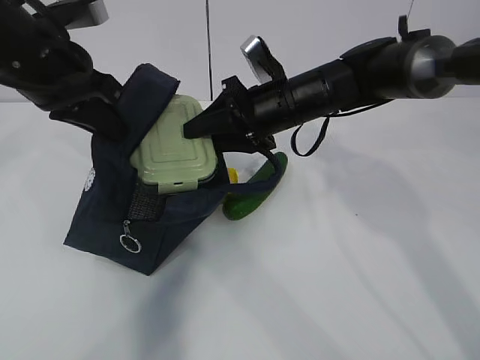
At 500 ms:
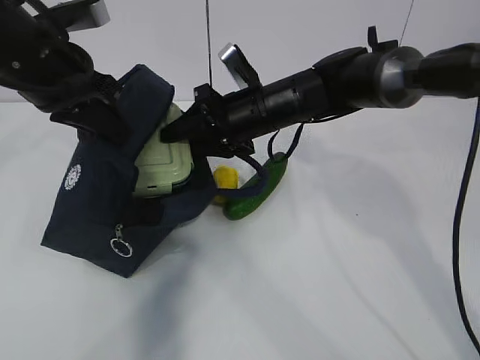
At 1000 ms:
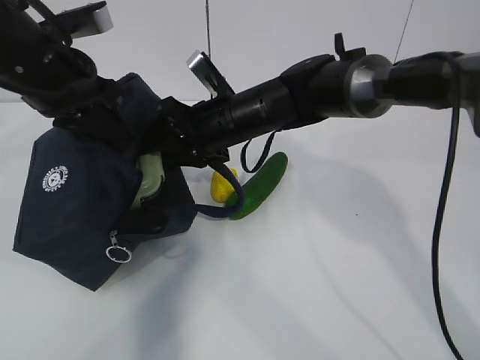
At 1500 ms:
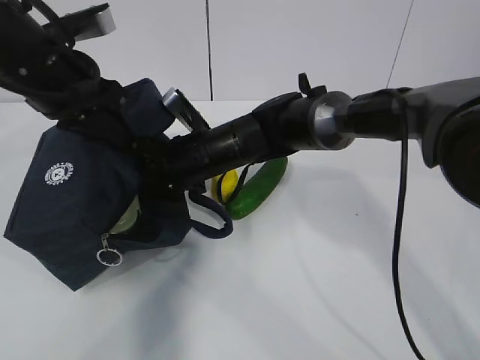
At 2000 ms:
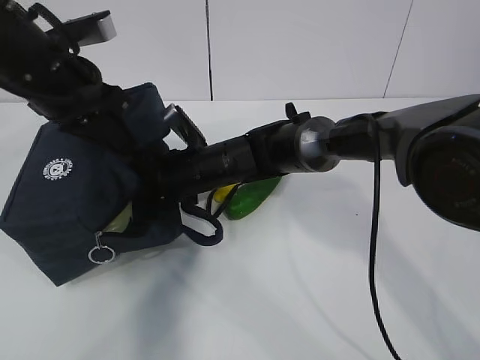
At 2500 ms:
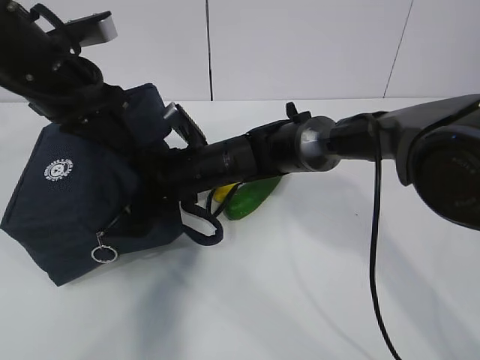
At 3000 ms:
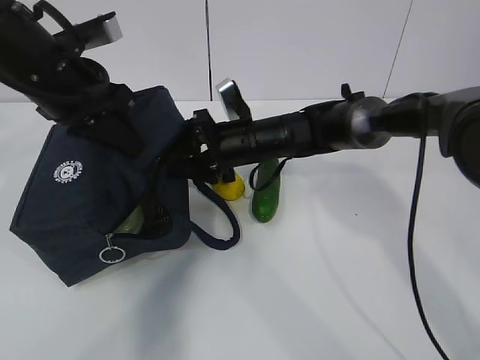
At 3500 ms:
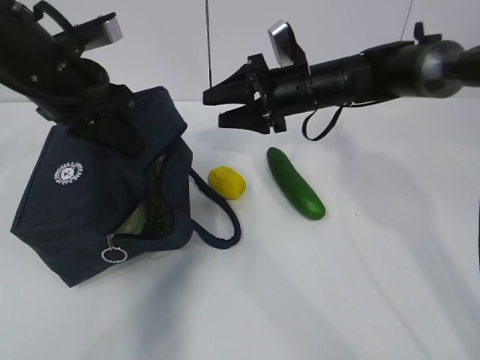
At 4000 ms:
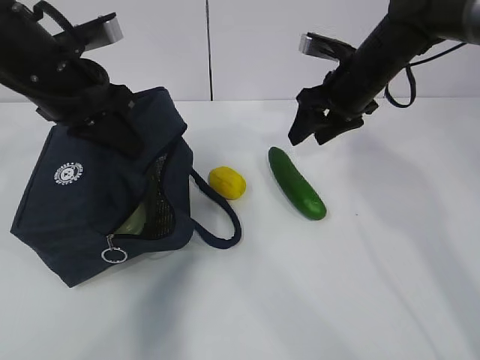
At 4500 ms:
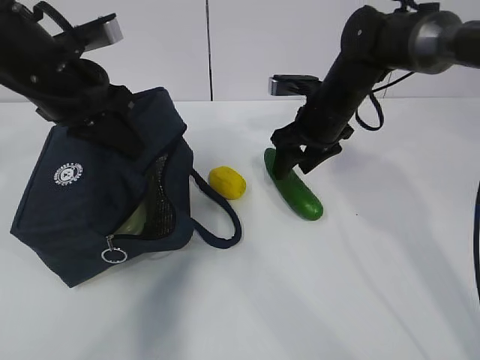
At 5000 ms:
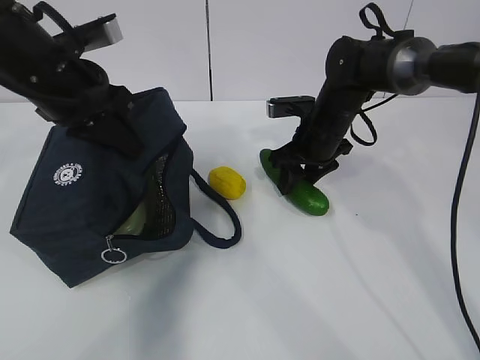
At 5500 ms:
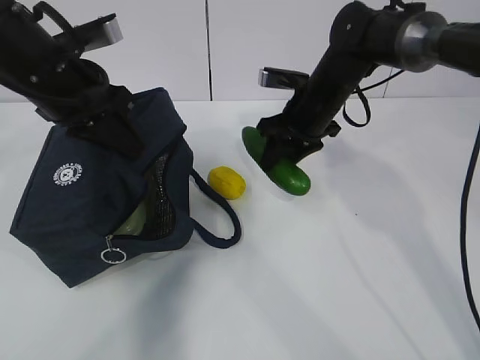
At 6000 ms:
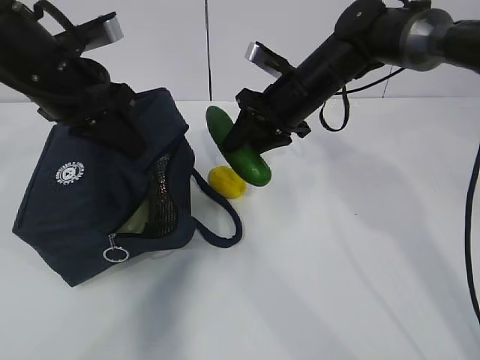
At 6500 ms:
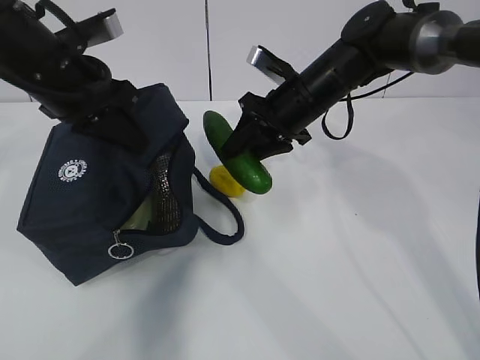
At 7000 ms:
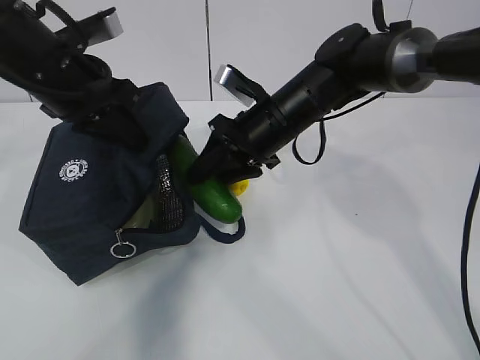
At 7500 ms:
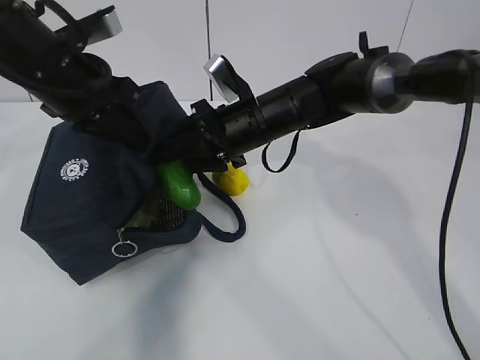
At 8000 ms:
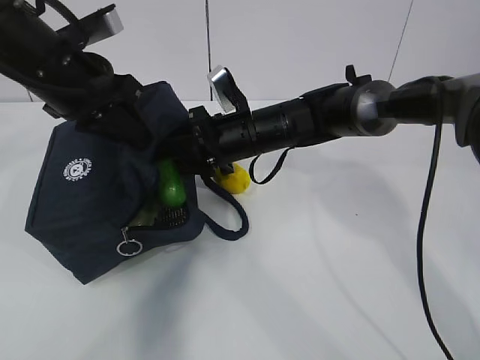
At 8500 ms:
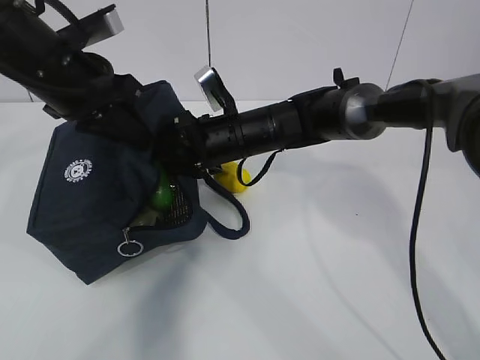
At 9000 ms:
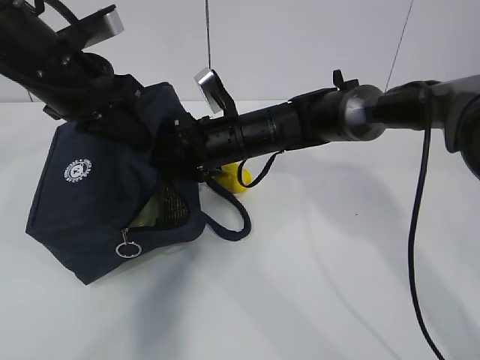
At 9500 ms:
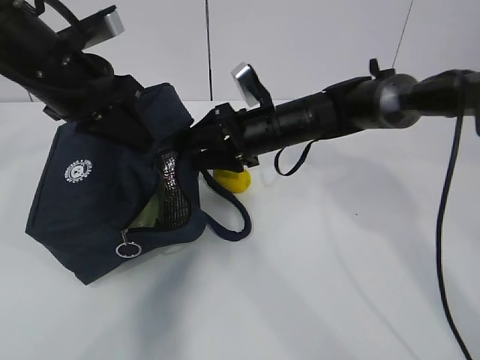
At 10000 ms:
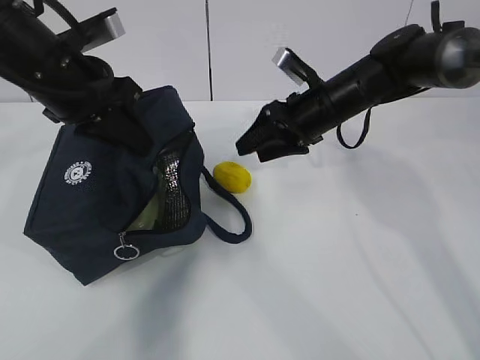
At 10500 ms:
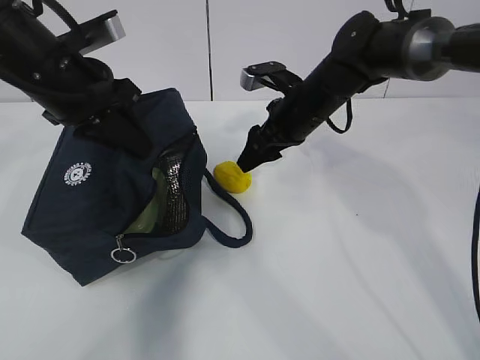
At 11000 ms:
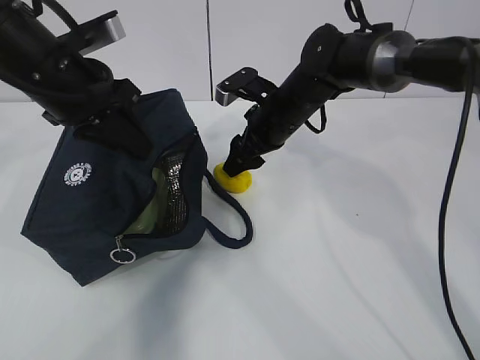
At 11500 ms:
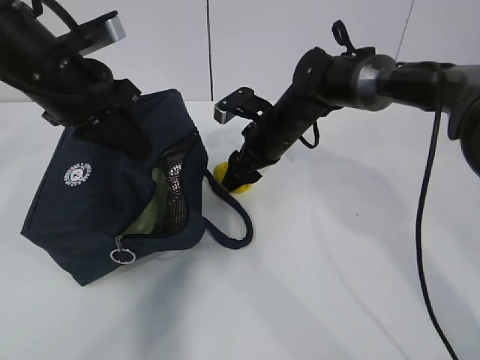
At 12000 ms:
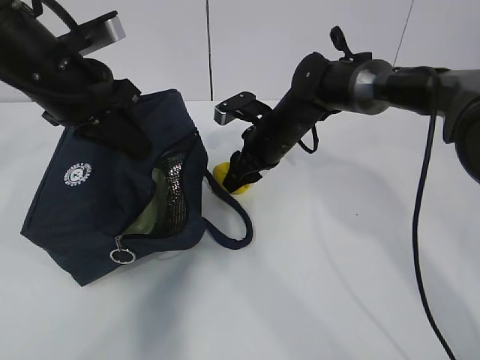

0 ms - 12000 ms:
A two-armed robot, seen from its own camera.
Step, 1000 ms - 3500 ms: Place it into the bag with your right hand.
Step, 4000 ms - 6500 ms: Grab the lemon with your right hand.
0 ms - 2000 ms: The right gripper heads to the left and downward, covering roughly 15 cm.
2000 ms - 4000 ms: The right gripper heads to the right and upward, covering roughly 25 cm.
4000 ms - 6000 ms: The right gripper is displaced to the left by some 5 cm, and moves about 10 cm downward and comes back.
6000 ms - 8000 ms: The right gripper goes approximately 5 cm to the left.
8000 ms - 10000 ms: The right gripper heads to the right, covering some 10 cm.
10000 ms - 12000 ms: The right gripper travels to the left and downward by approximately 10 cm.

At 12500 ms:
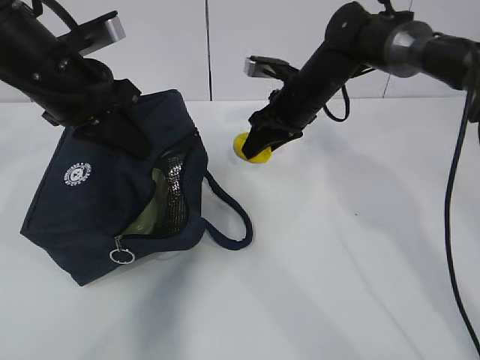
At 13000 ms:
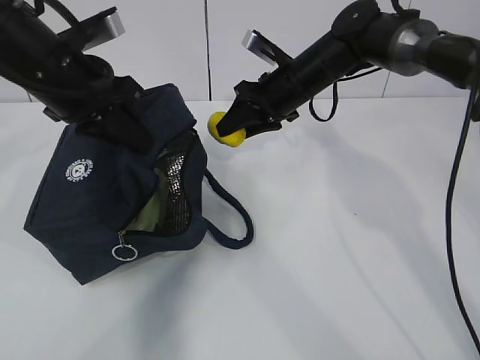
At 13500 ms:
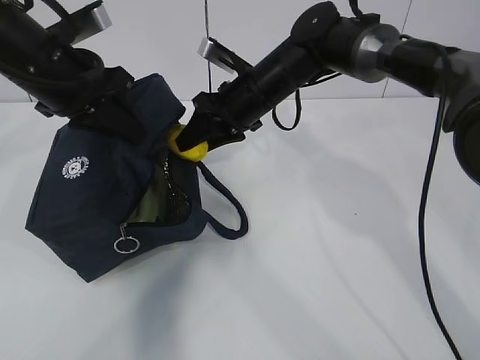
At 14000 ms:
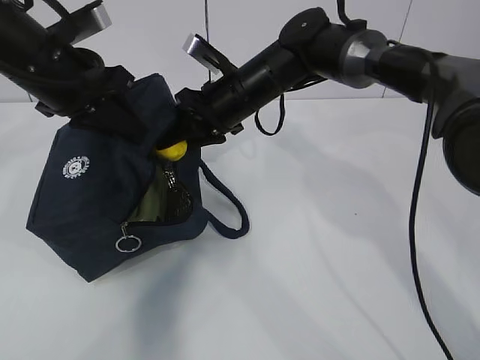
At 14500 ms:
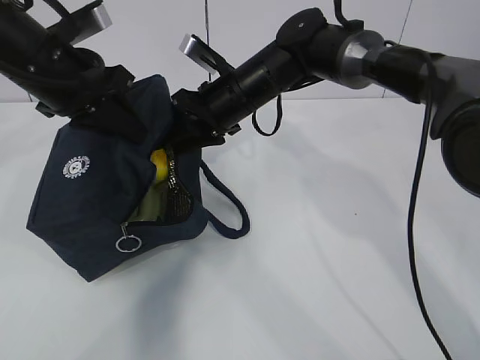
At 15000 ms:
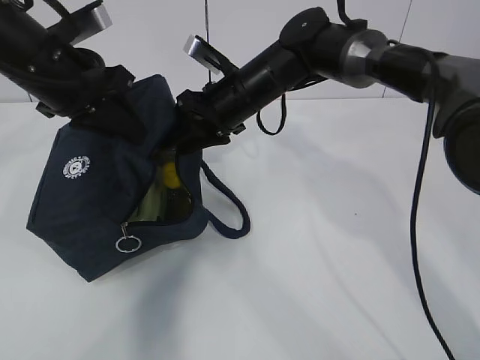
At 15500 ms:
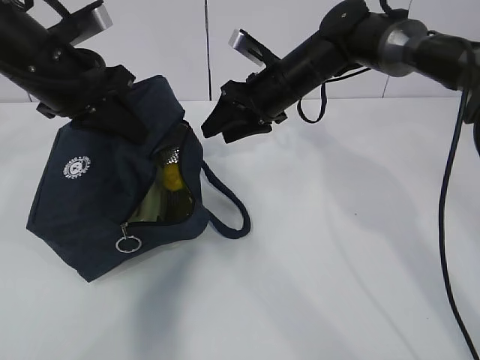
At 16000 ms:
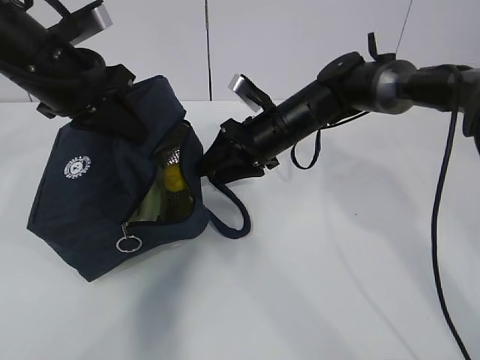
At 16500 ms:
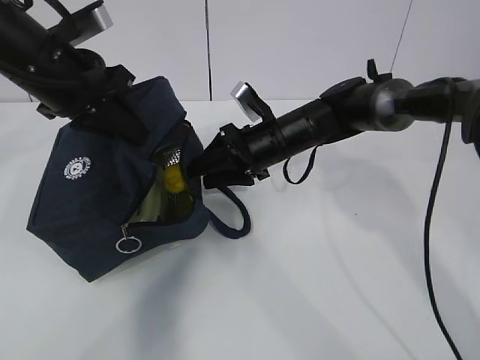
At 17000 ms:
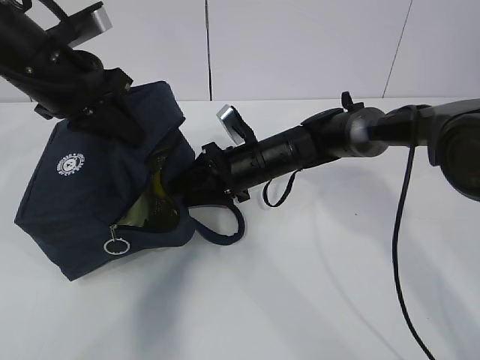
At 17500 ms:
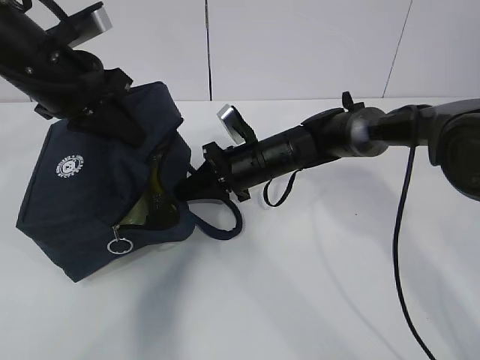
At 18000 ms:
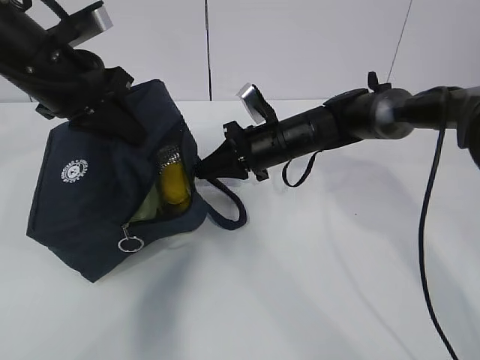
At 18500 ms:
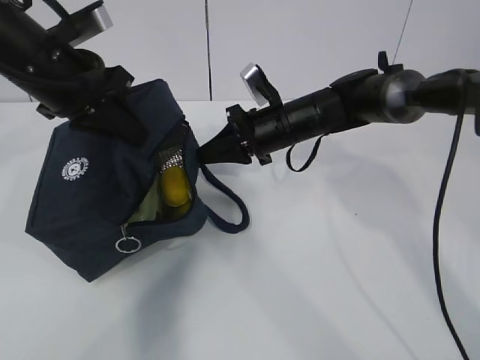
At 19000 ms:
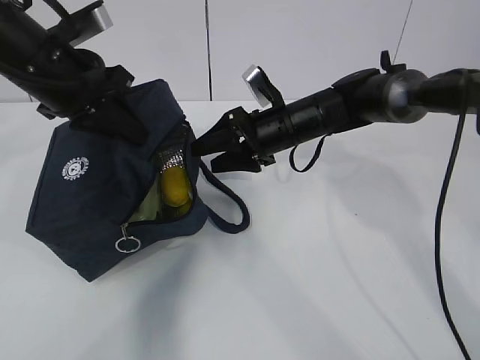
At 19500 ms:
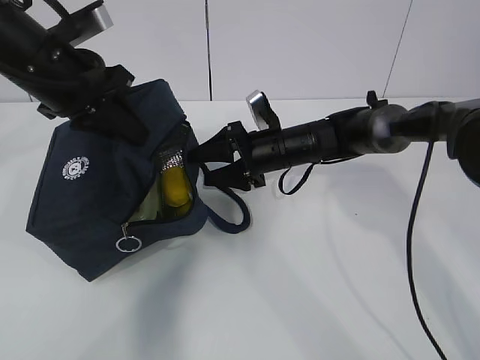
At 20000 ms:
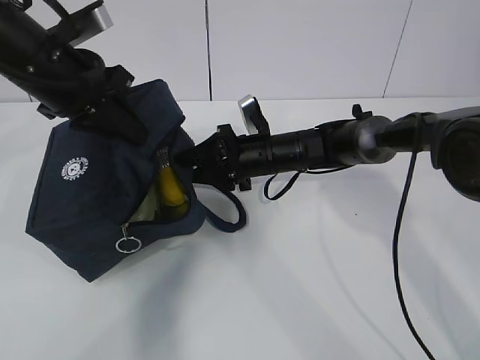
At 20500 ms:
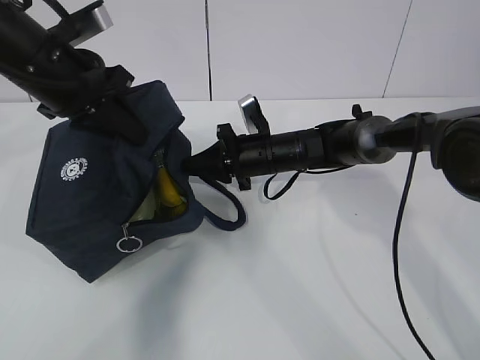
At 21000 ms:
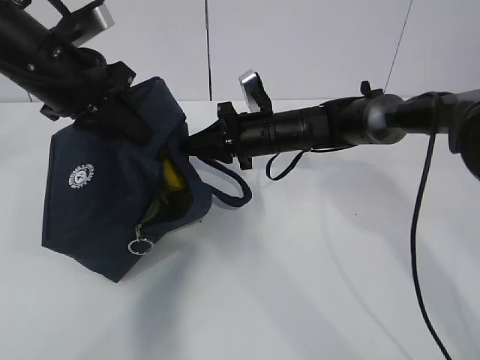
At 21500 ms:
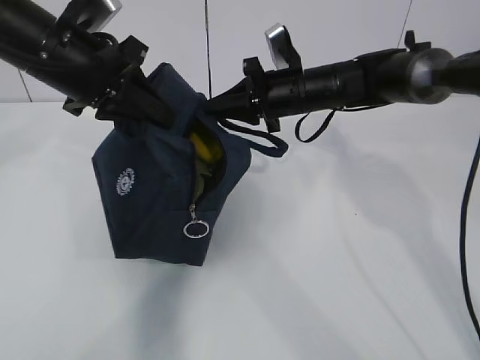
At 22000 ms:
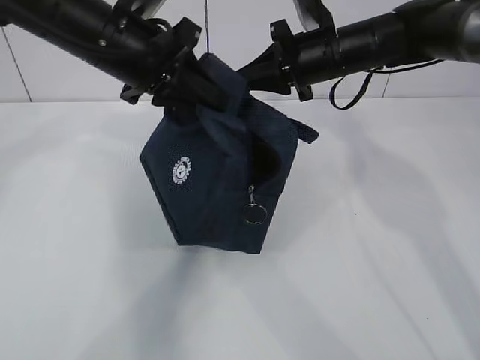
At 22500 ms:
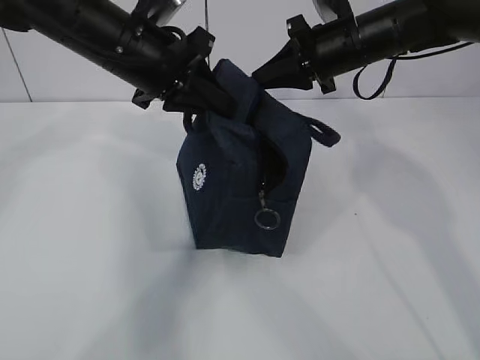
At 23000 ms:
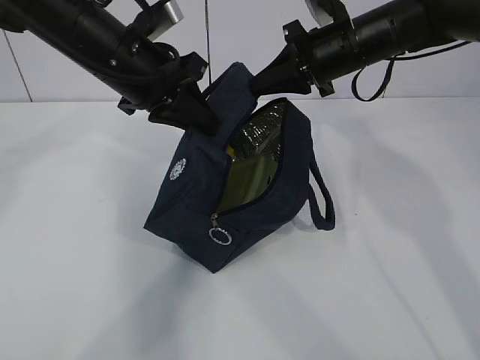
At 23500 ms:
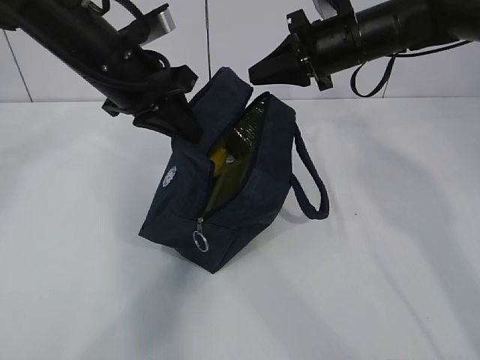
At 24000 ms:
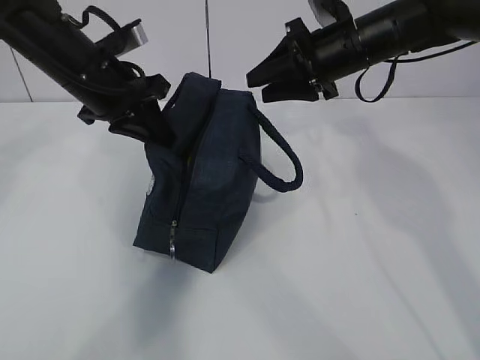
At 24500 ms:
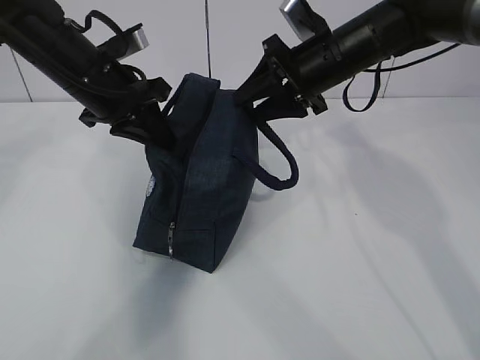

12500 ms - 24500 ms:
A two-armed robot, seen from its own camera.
Step, 12500 ms - 17500 ms: Grab the lunch bag with your right hand.
Step, 18000 ms - 19000 ms: Move the lunch bag to the right.
12500 ms - 14500 ms: The right gripper is displaced to the left by roughly 10 cm.
14500 ms - 16500 ms: The right gripper goes some 10 cm downward and to the right.
16500 ms - 18500 ms: The right gripper closes.
18500 ms - 20500 ms: The right gripper heads downward, covering some 5 cm, and opens and closes again.
20500 ms - 22500 ms: The left gripper shifts some 10 cm to the right. Meanwhile the right gripper goes about 20 cm upward and to the right.
22500 ms - 24500 ms: The right gripper opens up, while the left gripper travels to the left by some 5 cm.

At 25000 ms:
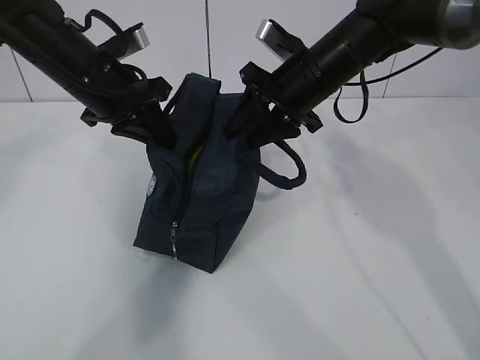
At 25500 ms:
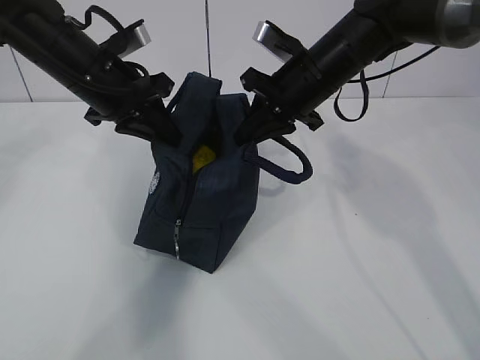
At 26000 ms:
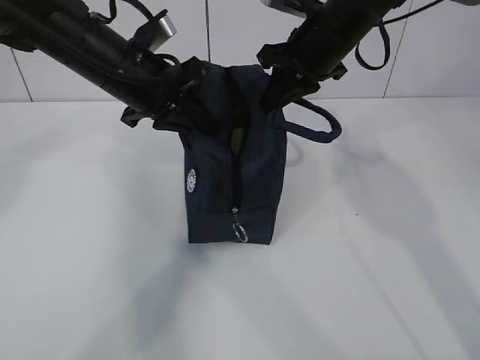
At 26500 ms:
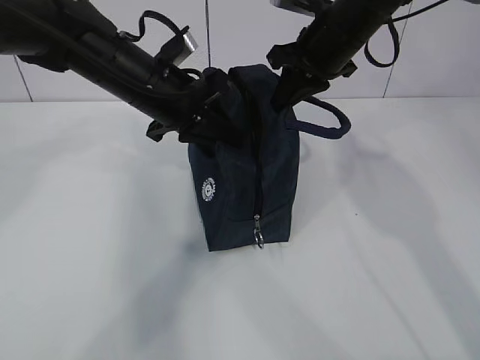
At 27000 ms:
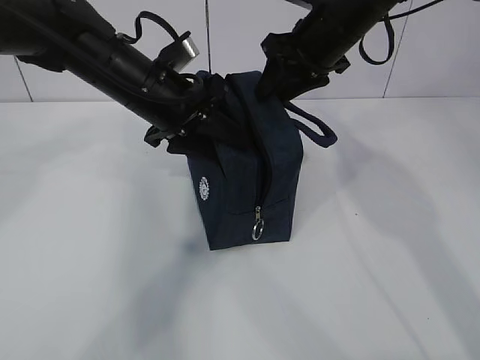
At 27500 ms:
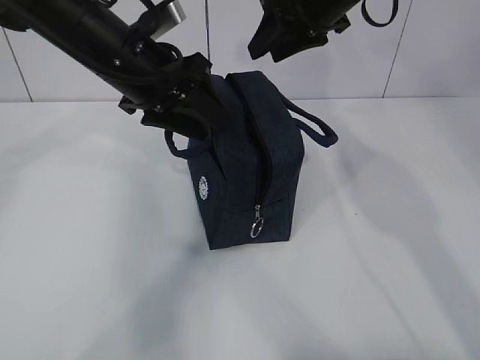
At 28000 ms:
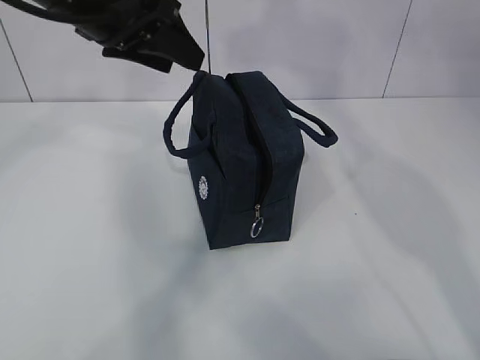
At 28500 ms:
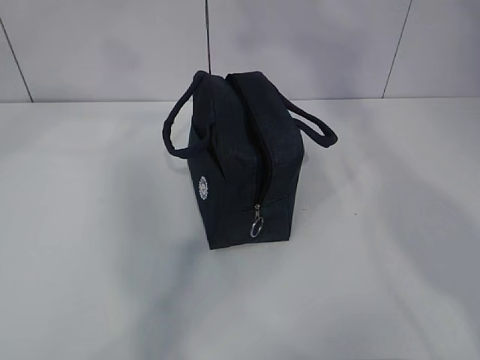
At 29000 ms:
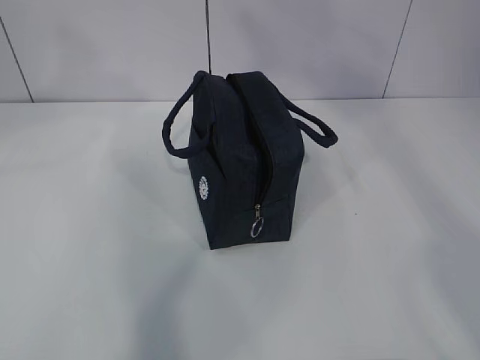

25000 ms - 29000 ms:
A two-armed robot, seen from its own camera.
25000 ms - 27000 ms: The left gripper shifts about 5 cm to the right, and opens up. The right gripper ends up about 5 cm from where it was, and closes, then reopens.
27000 ms - 29000 ms: The grippers both shift upward and backward by some 35 cm.
